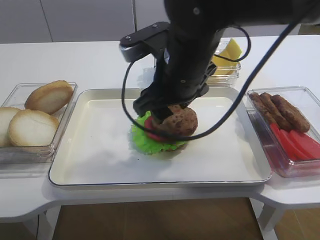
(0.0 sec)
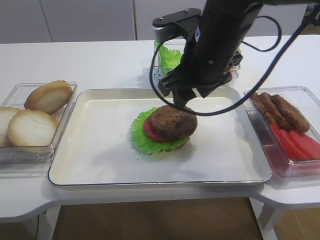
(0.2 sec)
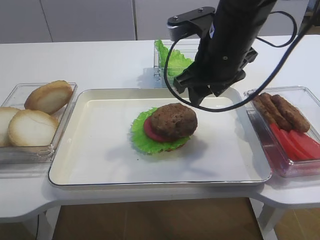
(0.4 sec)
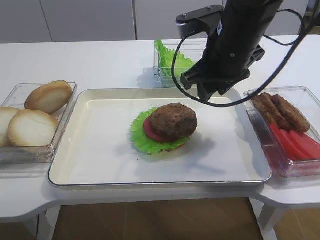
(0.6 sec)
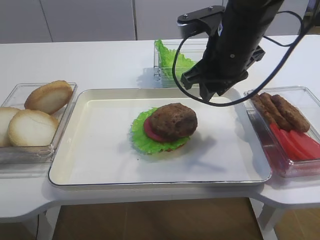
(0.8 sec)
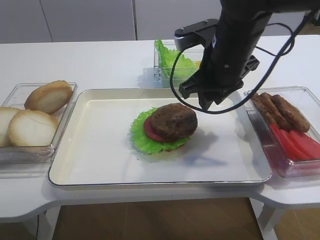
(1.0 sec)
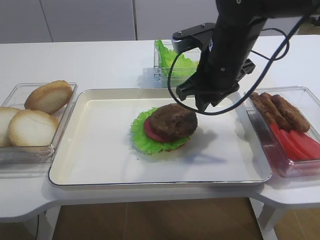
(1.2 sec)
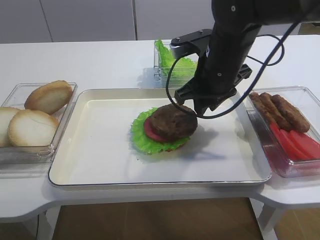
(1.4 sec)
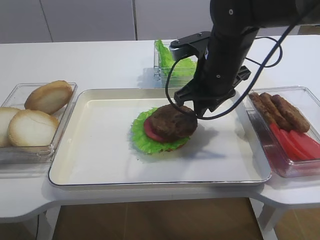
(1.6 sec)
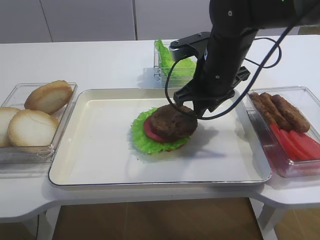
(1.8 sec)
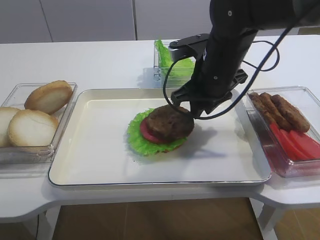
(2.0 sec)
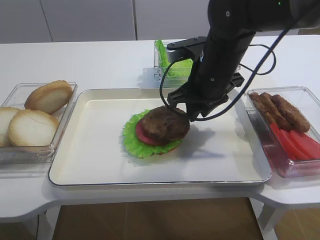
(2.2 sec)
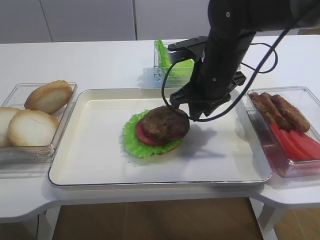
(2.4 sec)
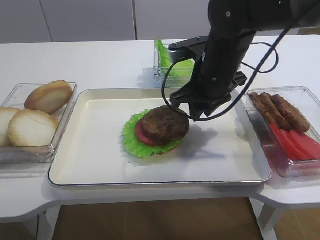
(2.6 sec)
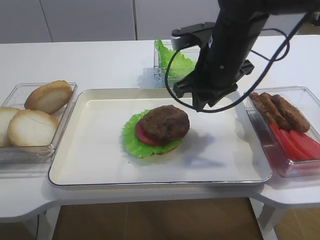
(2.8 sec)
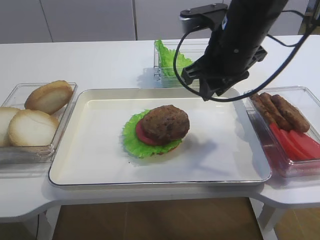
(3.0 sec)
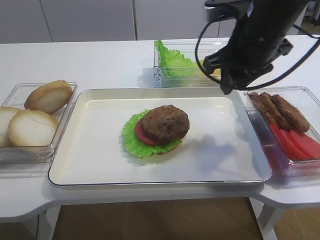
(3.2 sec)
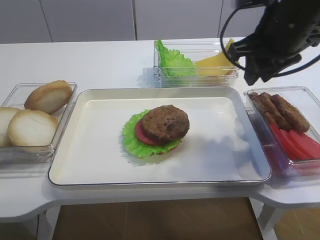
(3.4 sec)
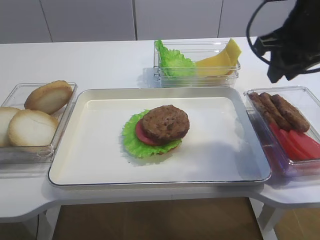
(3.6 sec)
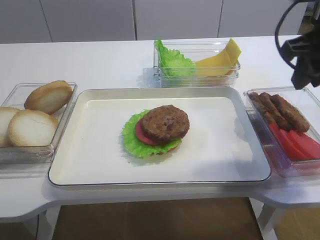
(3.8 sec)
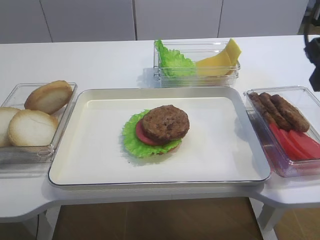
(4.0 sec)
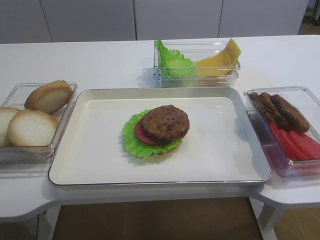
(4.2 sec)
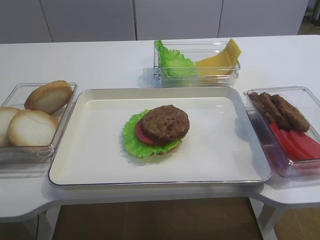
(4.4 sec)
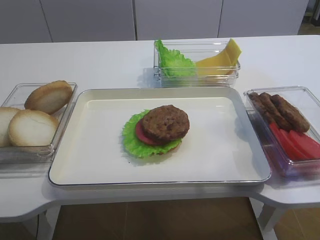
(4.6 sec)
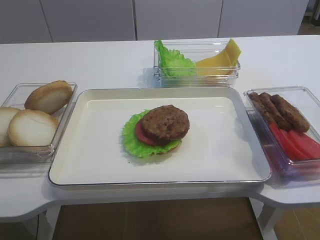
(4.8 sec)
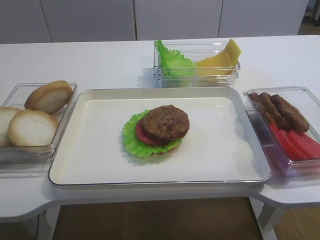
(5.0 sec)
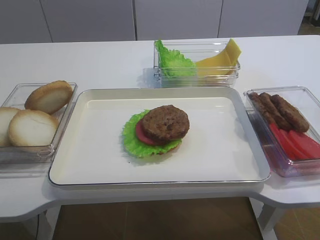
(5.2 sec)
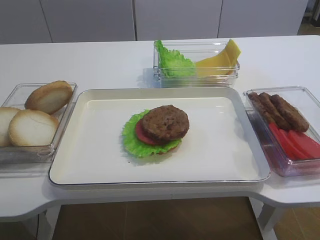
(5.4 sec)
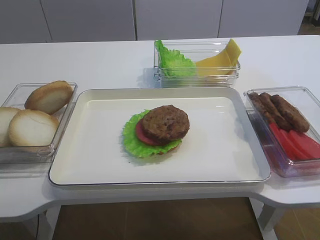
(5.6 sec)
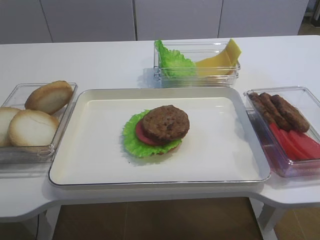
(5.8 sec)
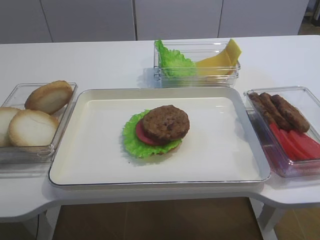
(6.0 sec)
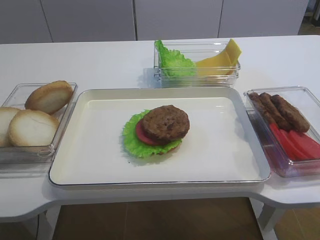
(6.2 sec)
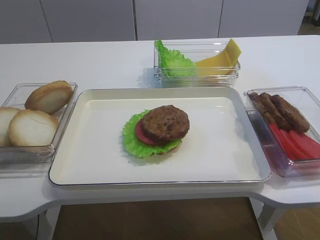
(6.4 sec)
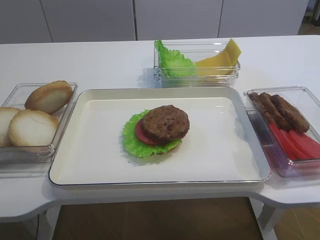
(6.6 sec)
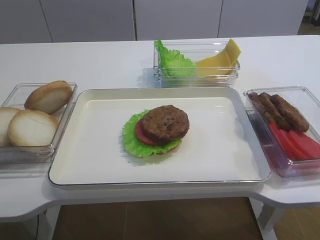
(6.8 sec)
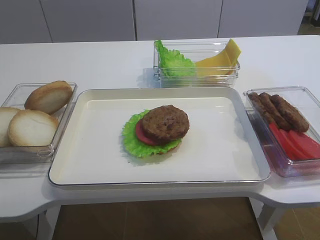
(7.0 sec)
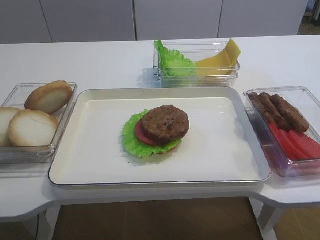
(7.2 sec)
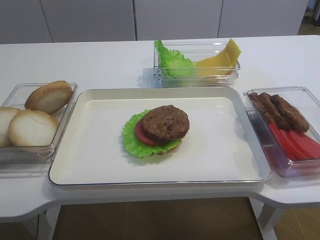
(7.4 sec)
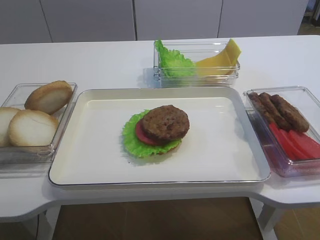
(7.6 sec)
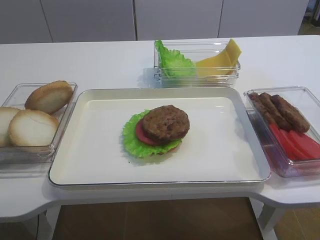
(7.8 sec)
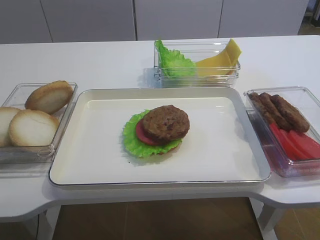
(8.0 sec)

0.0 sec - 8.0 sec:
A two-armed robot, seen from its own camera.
0.0 sec - 1.6 sec: The right gripper heads to the right and forward, covering about 10 cm, and closes.
1.6 sec - 3.2 sec: The right gripper heads upward, covering some 5 cm.
3.2 sec - 4.8 sec: The right gripper travels backward and to the right by approximately 30 cm.
4.8 sec - 6.4 sec: The right gripper is displaced downward and backward by roughly 10 cm, and opens its fingers.

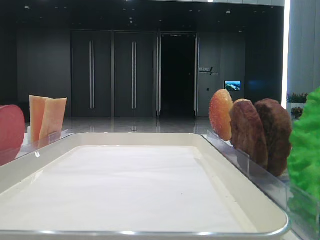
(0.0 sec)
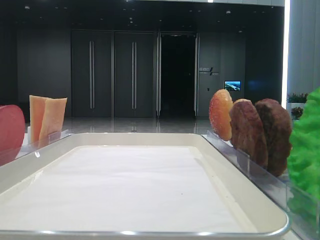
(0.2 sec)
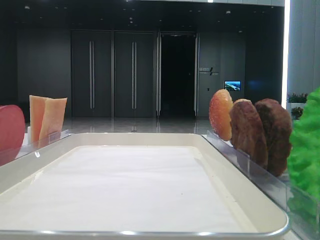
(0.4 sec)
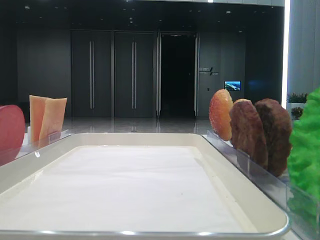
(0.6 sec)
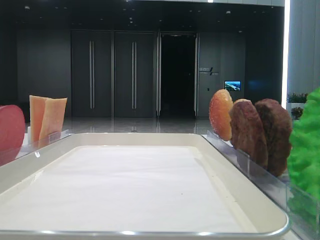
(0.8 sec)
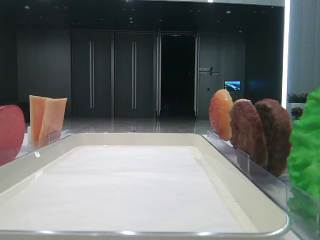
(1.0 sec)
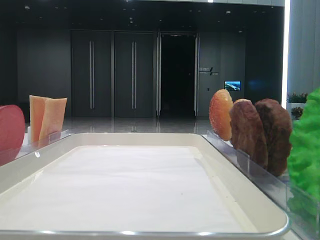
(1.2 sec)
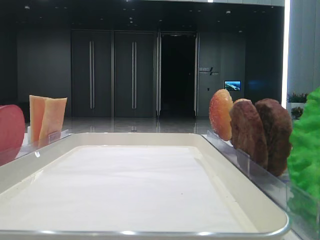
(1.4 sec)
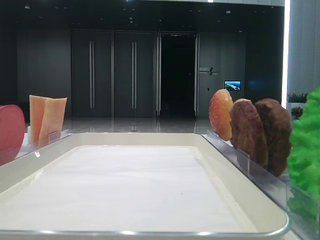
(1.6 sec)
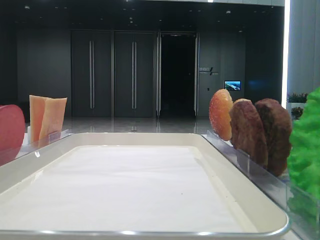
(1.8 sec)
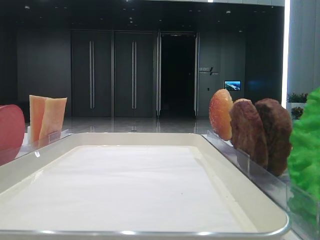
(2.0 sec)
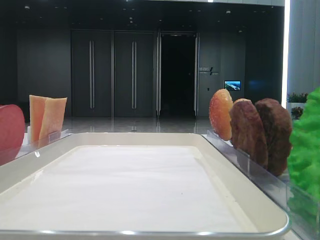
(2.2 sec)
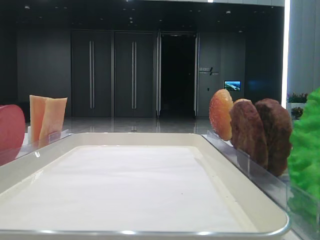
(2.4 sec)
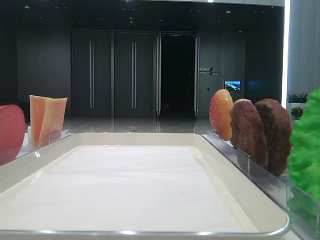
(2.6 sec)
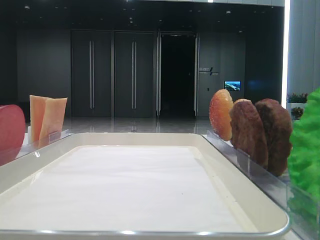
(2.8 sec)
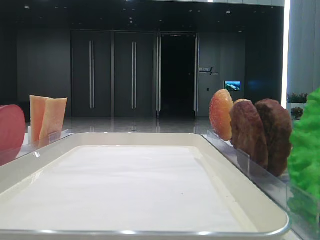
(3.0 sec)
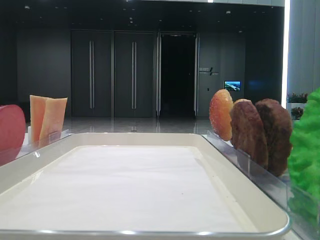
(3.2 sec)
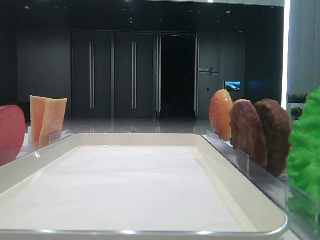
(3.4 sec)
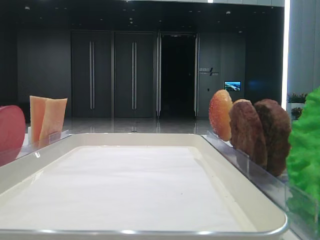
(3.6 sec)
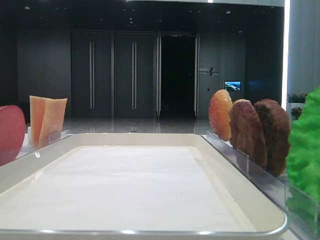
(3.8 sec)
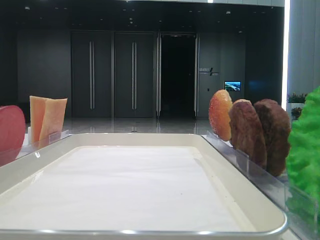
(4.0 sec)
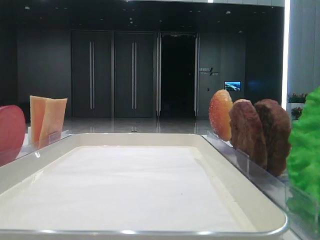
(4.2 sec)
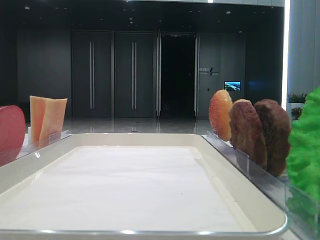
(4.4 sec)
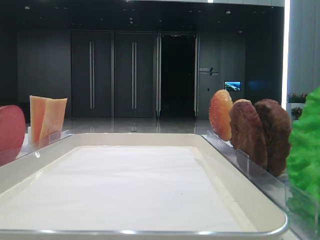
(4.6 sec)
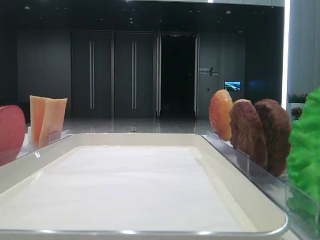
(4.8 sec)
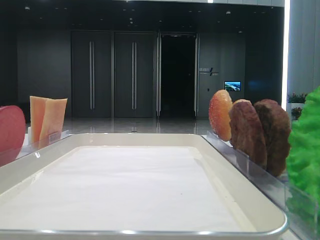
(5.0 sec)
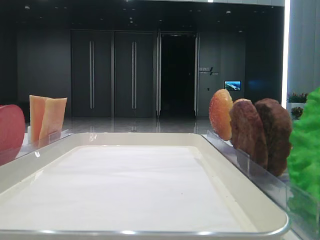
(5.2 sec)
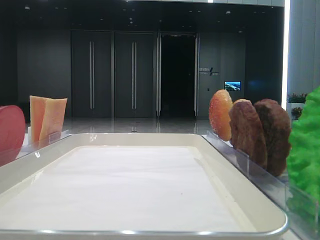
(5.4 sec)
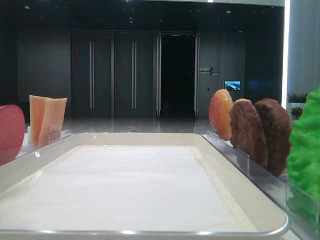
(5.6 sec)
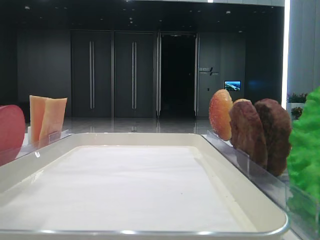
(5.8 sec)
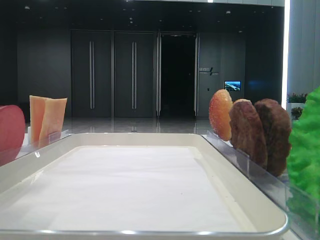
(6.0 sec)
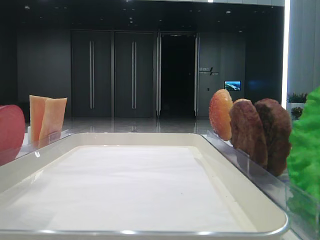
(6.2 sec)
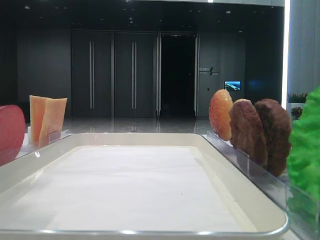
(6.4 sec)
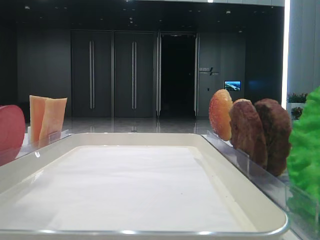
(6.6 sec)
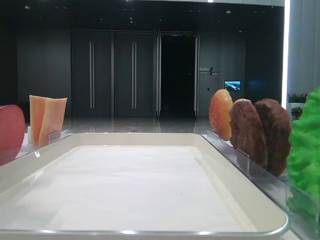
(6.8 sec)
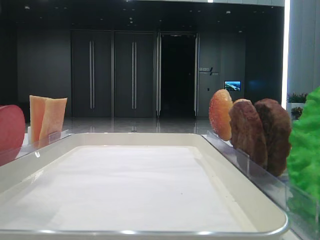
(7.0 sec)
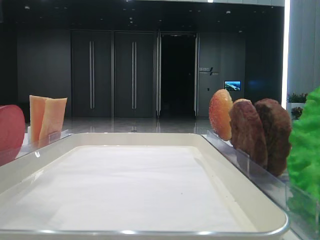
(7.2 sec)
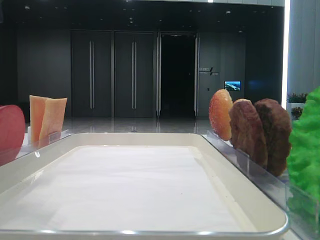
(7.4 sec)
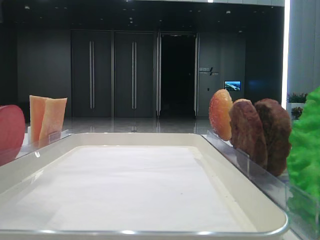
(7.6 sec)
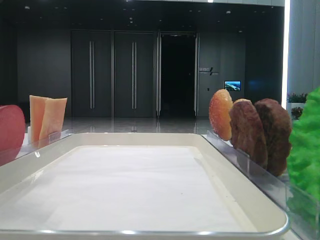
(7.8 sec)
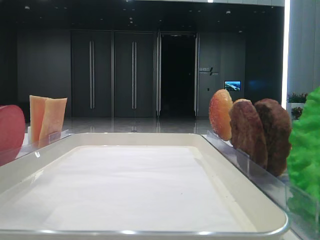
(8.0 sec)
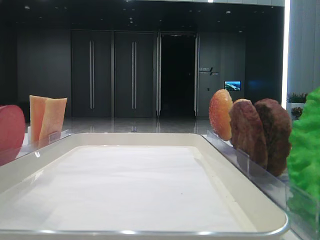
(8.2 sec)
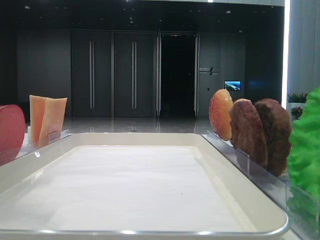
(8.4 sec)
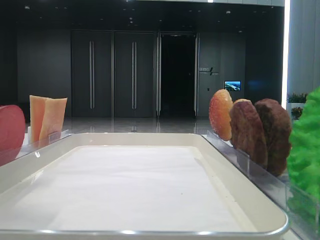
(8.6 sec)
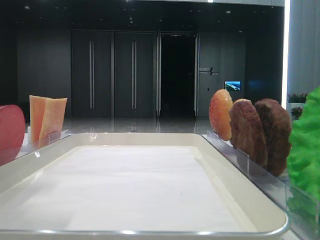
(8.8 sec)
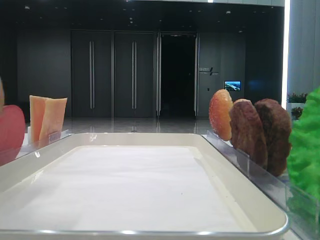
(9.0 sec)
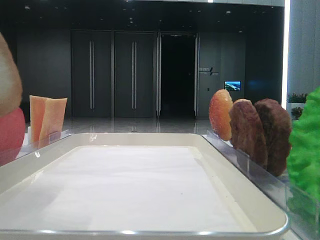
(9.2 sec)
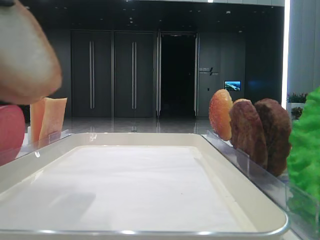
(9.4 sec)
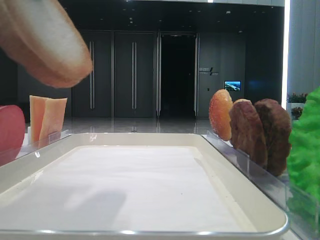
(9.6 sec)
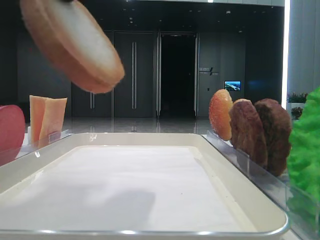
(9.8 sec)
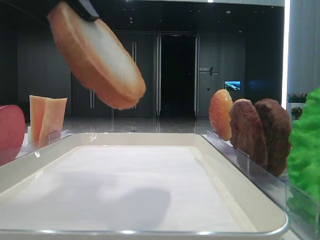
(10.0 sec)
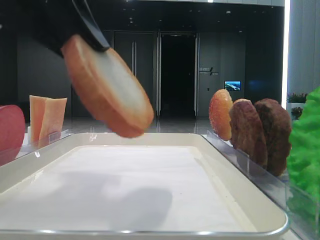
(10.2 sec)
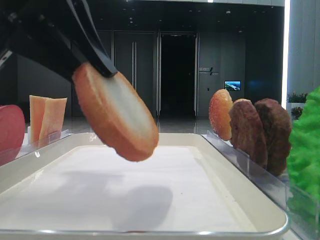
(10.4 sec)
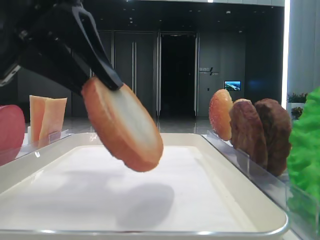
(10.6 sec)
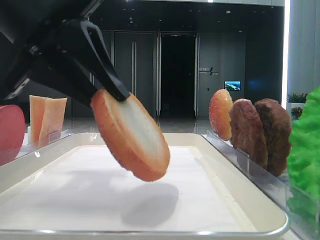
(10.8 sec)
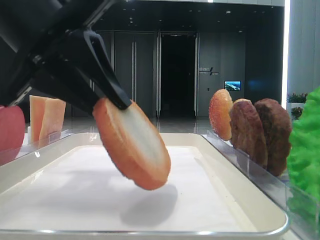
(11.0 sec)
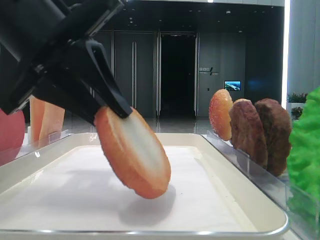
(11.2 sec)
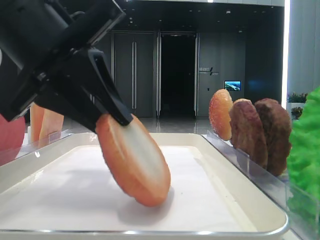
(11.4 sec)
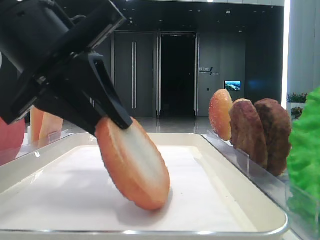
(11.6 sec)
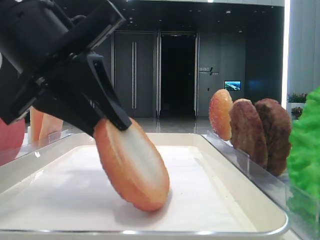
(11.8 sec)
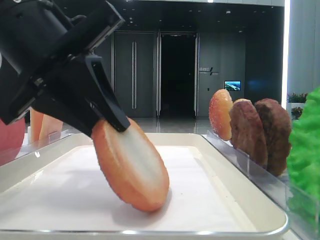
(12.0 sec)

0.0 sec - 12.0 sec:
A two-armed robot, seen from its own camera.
3.0 sec - 4.4 sec: The grippers make only small movements.
4.4 sec - 6.0 sec: The left gripper shifts approximately 10 cm to the right.
9.0 sec - 10.4 sec: The left gripper travels to the right and downward by some 10 cm.
10.4 sec - 12.0 sec: The left gripper ends up some 5 cm from where it was.

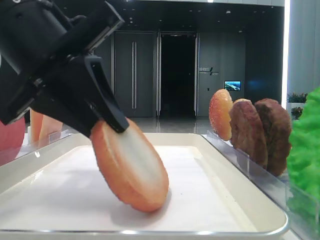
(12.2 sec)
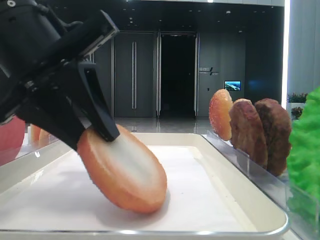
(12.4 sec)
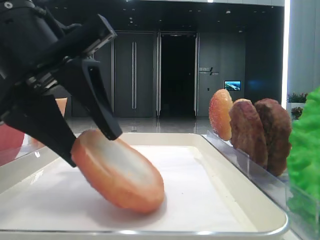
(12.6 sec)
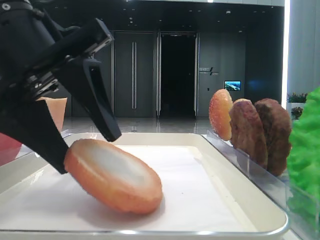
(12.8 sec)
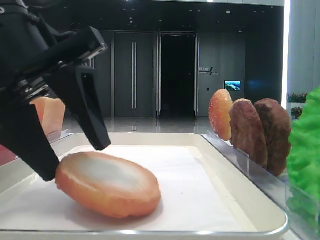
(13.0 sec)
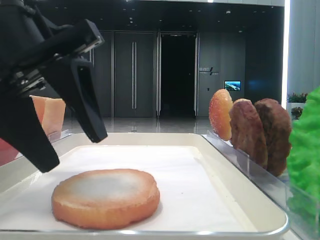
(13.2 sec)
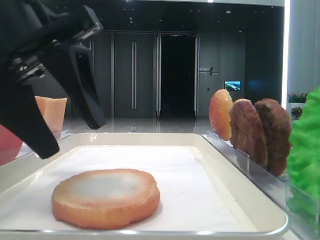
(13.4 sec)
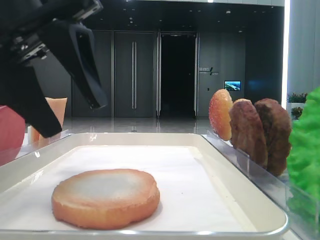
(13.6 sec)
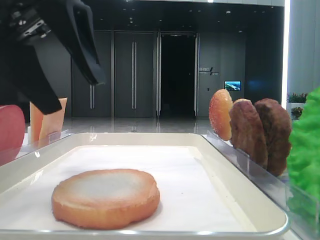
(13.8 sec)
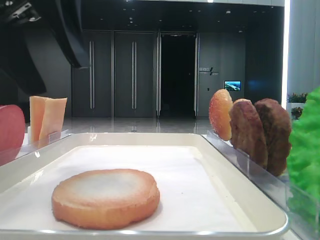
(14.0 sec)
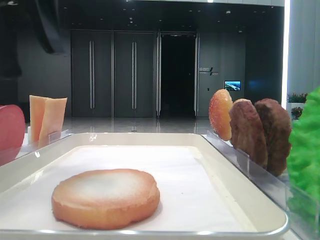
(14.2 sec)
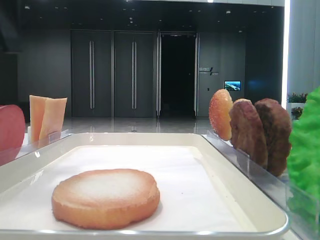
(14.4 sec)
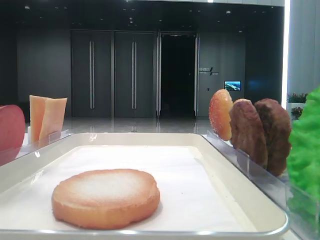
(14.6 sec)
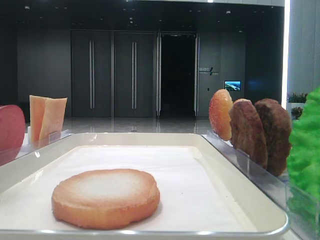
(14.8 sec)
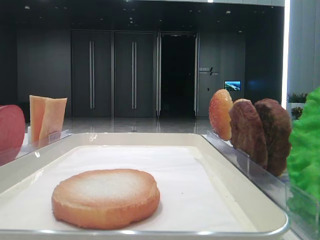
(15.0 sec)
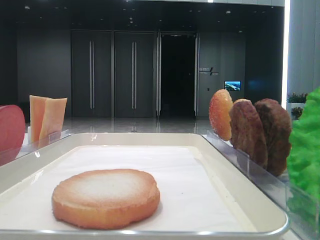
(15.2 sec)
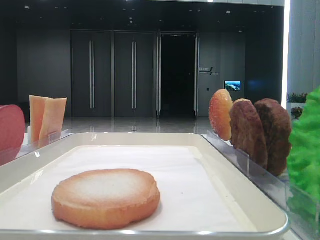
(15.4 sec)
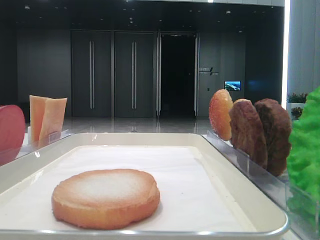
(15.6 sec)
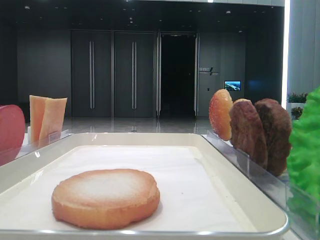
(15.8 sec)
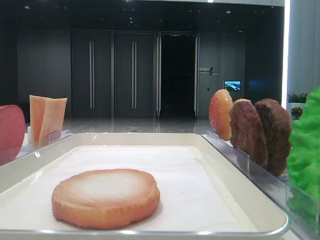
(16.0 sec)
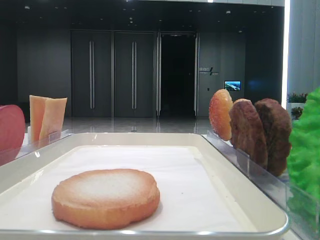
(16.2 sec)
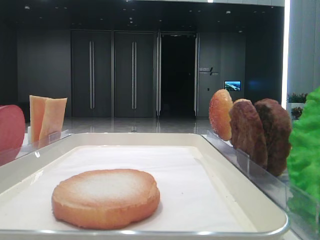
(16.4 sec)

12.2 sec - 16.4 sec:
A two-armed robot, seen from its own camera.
12.2 sec - 13.6 sec: The left gripper opens up.
13.6 sec - 15.0 sec: The left gripper is displaced to the left and upward by approximately 15 cm.
